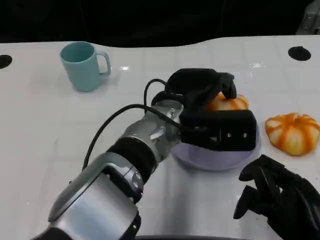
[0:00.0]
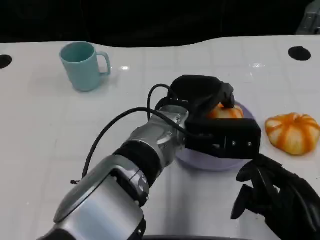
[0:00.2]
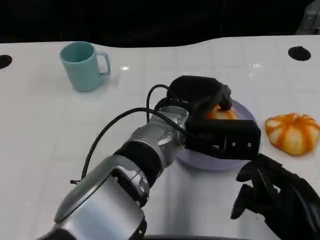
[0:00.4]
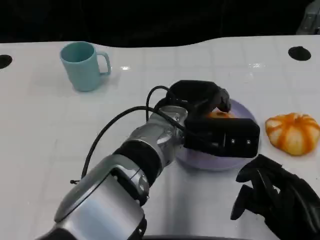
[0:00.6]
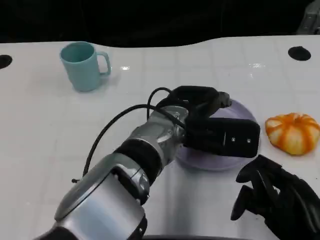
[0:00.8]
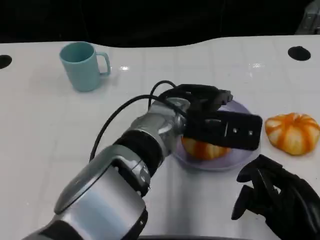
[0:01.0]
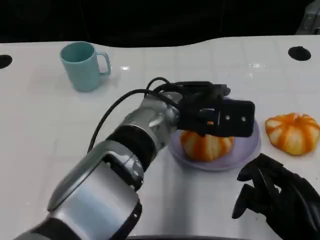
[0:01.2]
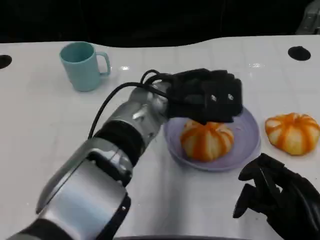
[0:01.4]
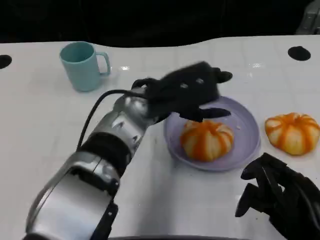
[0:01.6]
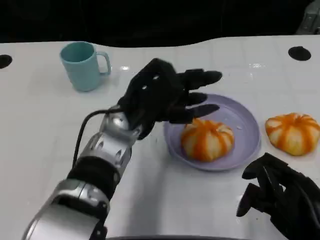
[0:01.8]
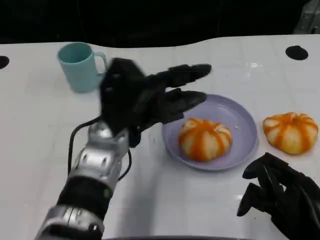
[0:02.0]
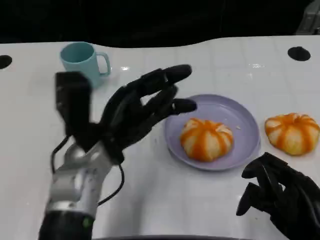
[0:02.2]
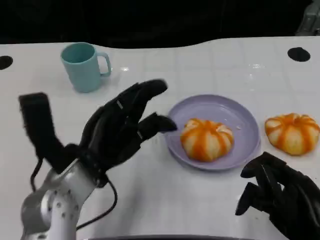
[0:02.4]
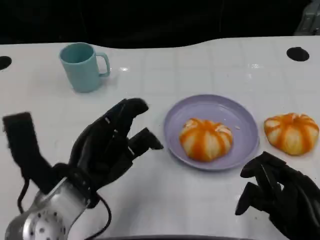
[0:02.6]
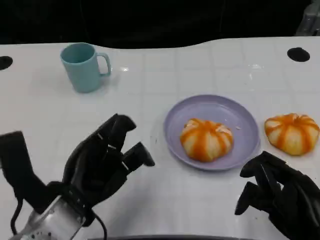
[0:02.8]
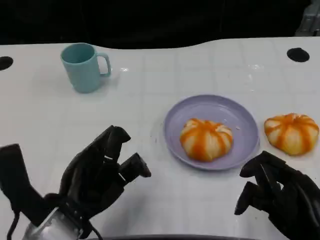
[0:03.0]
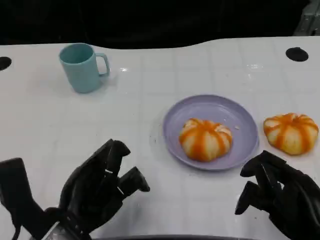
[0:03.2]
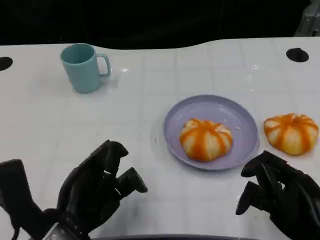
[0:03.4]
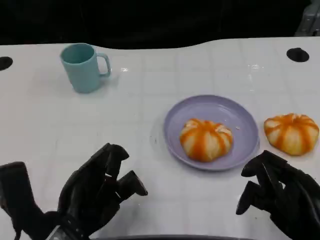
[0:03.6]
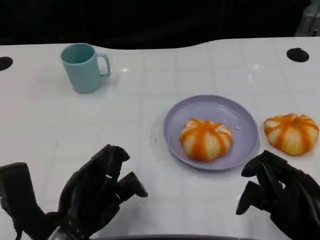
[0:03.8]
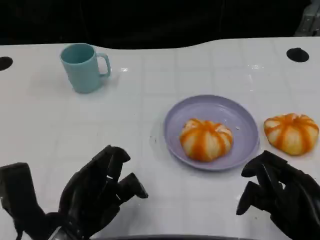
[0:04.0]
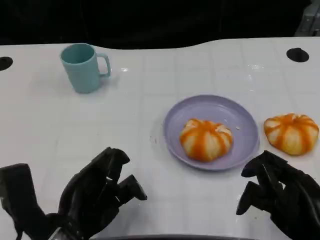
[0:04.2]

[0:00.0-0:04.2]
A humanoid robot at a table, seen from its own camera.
Task of the whole recording: Grasp the bread from the table and place it into the plate.
0:01.4 to 0:02.8: The left hand travels to the left, backward and downward by approximately 20 cm.
0:02.8 to 0:04.2: The hands make only small movements.

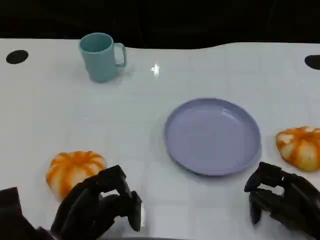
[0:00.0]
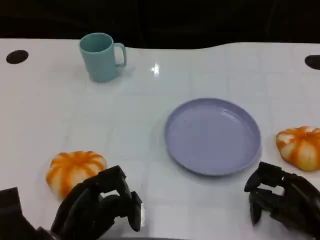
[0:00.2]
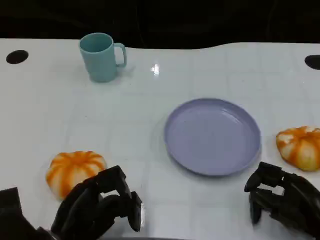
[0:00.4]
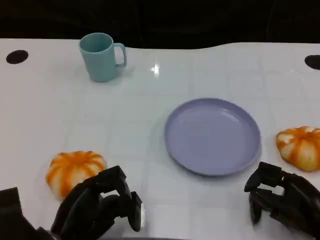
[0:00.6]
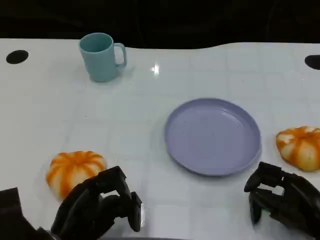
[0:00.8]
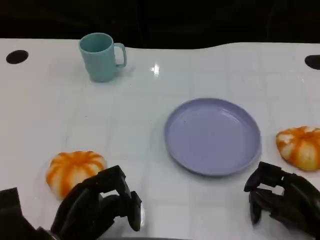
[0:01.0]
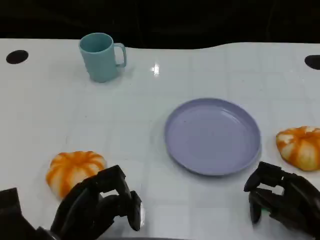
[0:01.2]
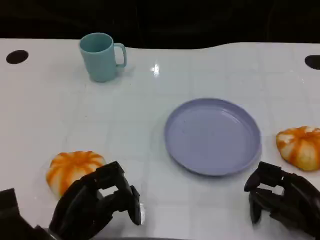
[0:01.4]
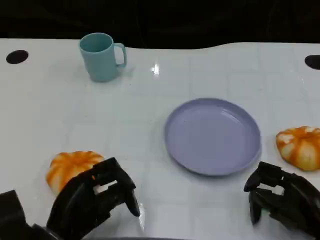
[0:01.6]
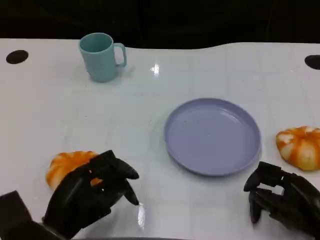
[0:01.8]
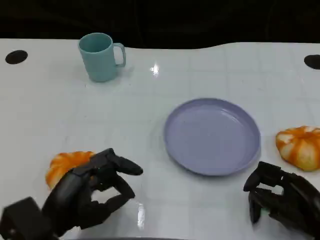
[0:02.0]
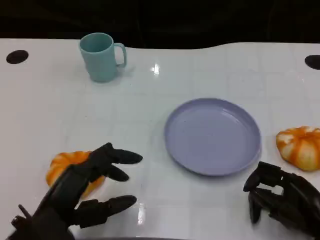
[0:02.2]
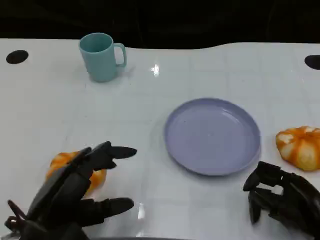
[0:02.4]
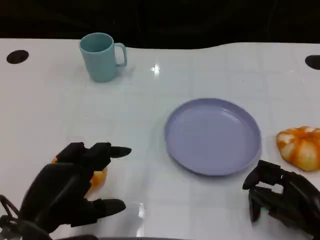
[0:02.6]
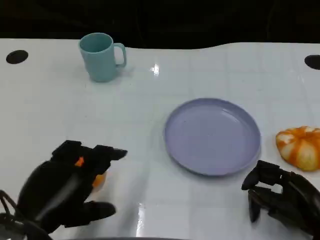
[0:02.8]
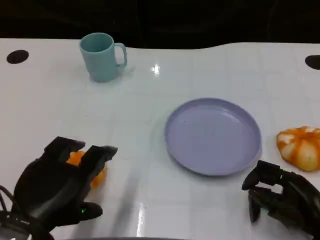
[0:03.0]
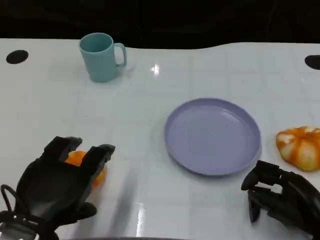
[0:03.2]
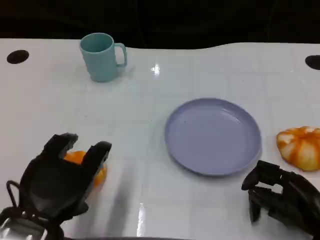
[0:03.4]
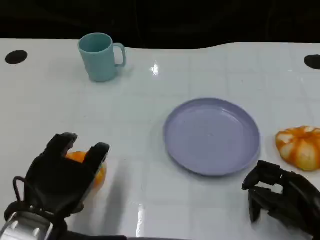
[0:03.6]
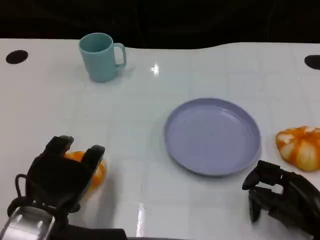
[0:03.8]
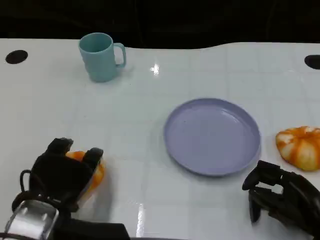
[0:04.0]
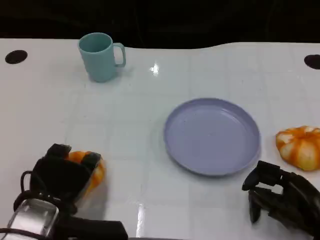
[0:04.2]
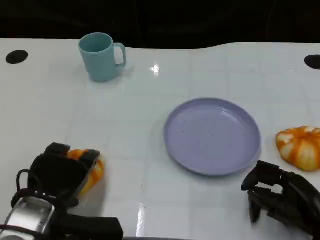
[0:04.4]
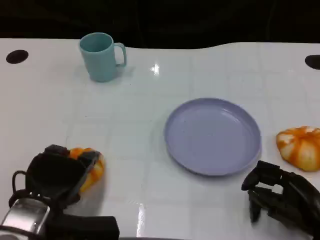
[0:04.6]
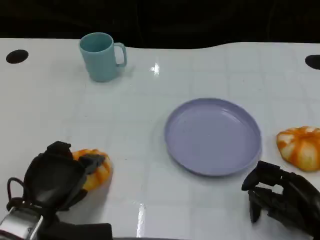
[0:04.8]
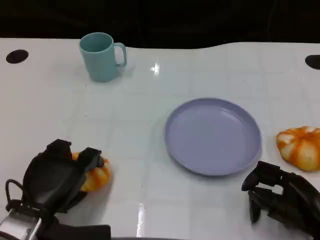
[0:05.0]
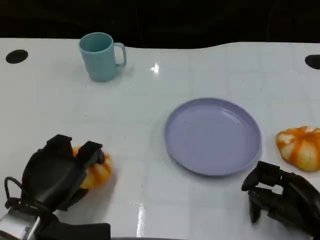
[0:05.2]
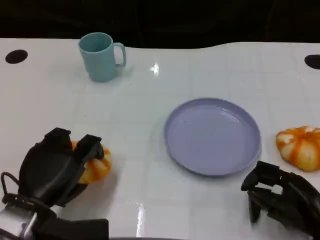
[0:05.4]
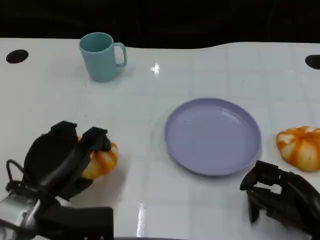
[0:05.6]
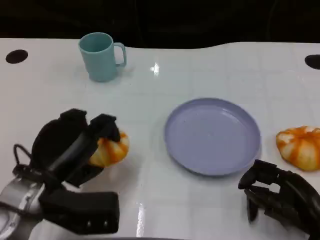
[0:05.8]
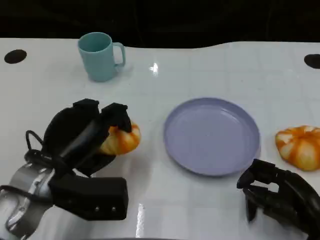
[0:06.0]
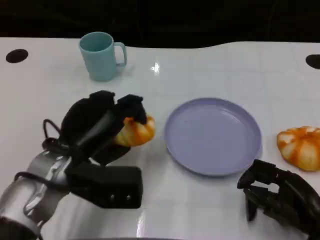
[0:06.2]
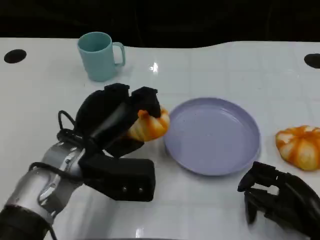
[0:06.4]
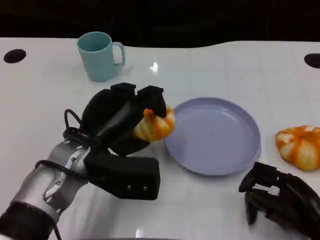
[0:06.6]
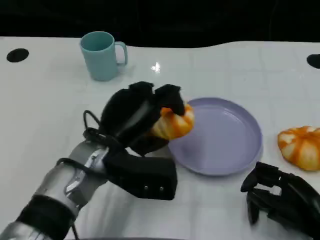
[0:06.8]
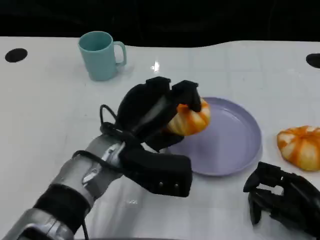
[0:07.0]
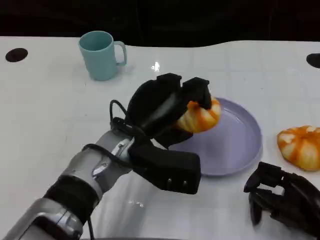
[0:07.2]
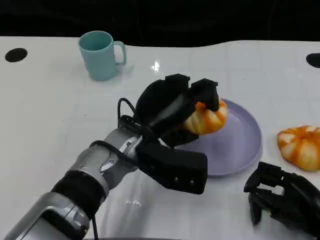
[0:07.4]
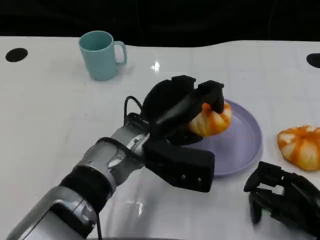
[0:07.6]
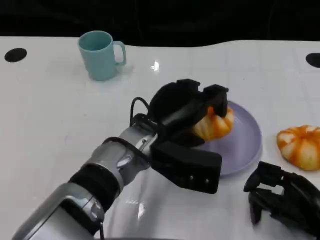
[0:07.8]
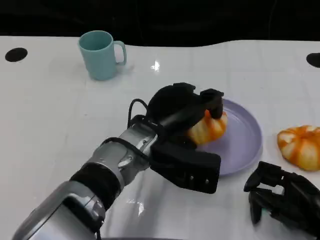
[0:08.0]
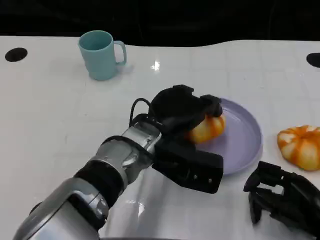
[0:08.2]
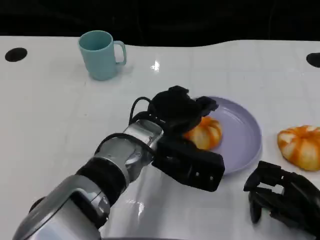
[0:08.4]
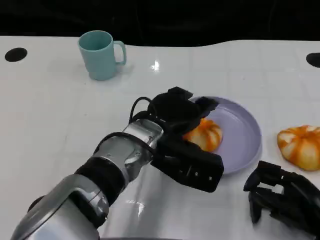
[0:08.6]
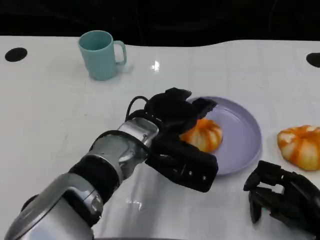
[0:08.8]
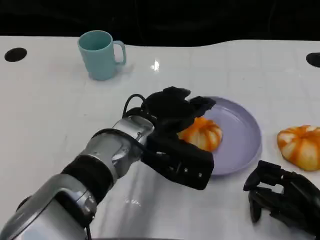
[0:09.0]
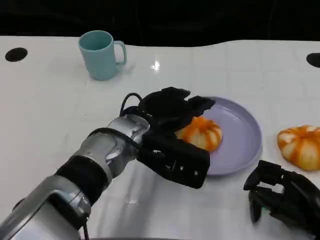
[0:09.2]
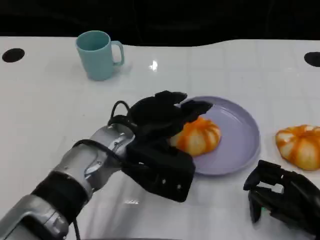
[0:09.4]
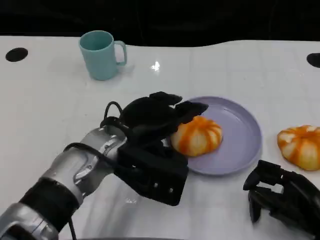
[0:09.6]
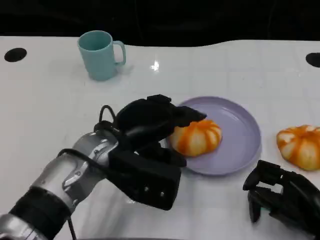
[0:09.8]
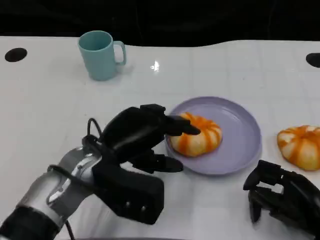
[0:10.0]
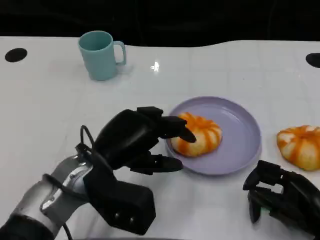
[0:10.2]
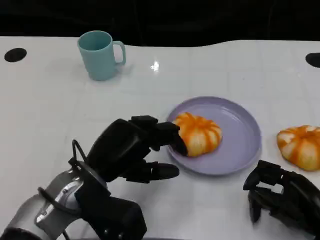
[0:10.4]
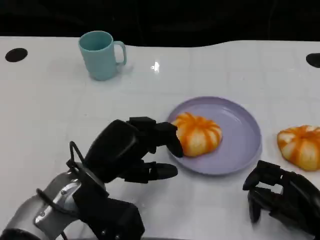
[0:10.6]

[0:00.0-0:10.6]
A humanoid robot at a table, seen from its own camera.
Task of the whole recording: Grasp the bread from the table and place it into the plate.
0:00.0 to 0:01.6: The hands stay close to where they were, moving slightly.
0:01.6 to 0:03.0: The left hand shifts about 10 cm upward.
0:03.0 to 0:04.6: The left hand moves downward and forward, roughly 10 cm.
0:04.6 to 0:06.0: The left hand ends up about 5 cm from where it was.
0:06.0 to 0:07.6: The left hand heads to the right, covering roughly 15 cm.
0:09.0 to 0:10.6: The left hand goes some 10 cm to the left and backward.
